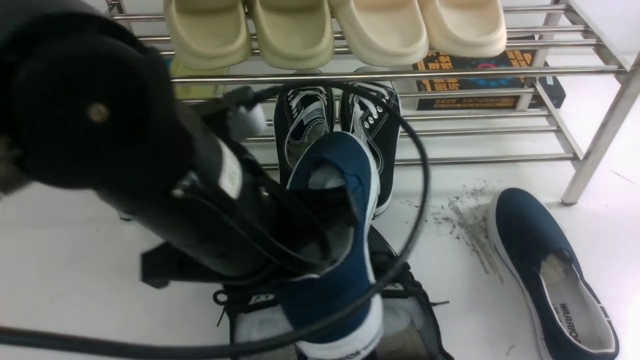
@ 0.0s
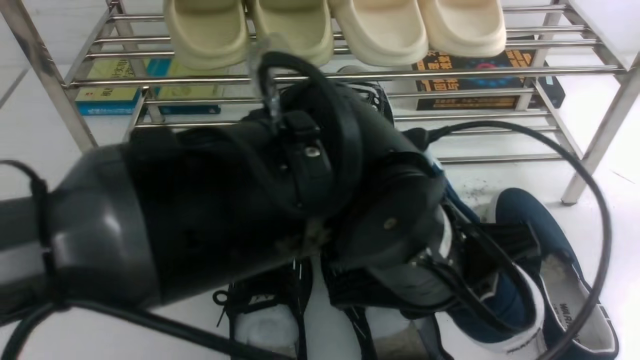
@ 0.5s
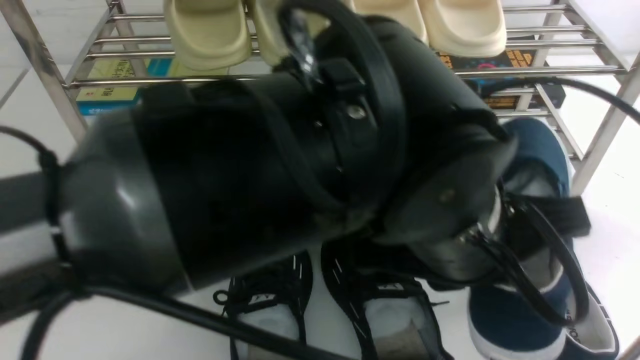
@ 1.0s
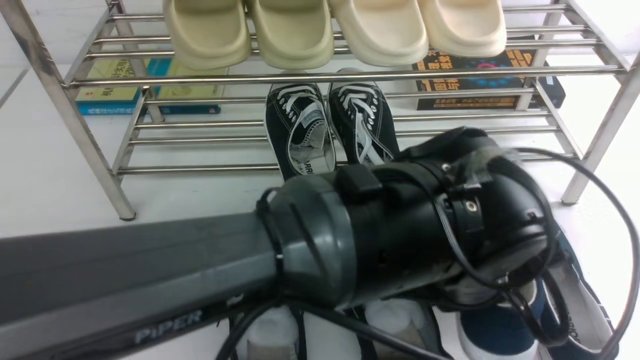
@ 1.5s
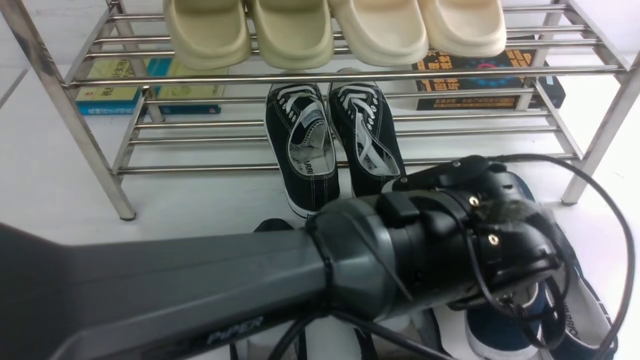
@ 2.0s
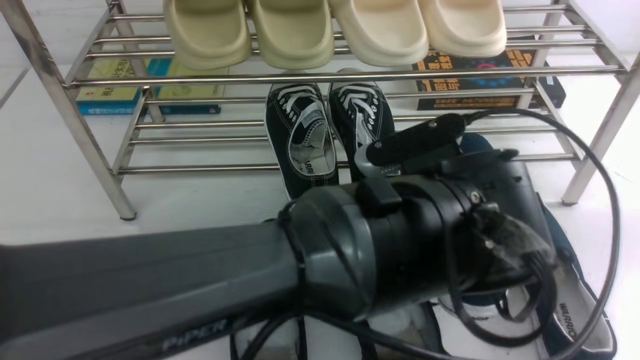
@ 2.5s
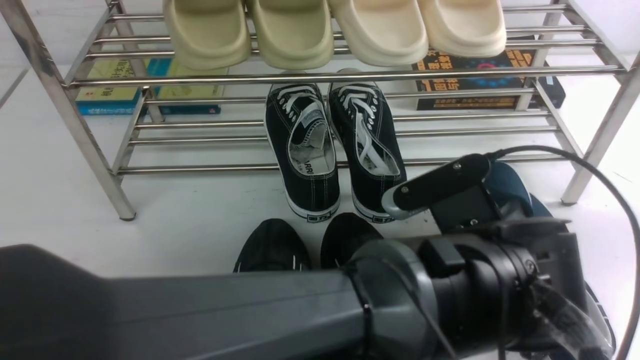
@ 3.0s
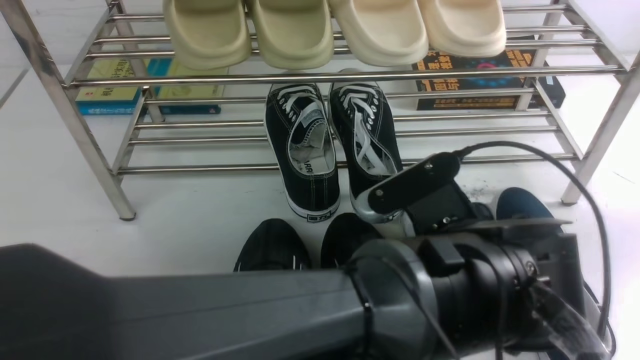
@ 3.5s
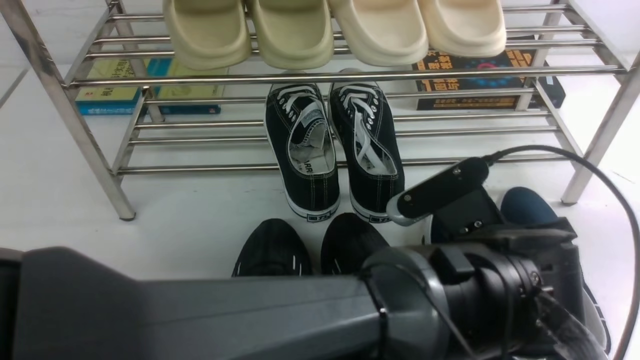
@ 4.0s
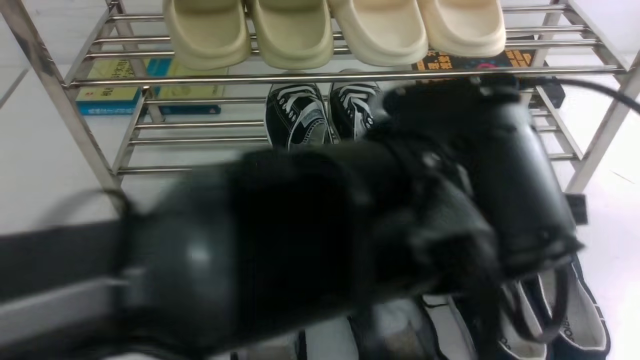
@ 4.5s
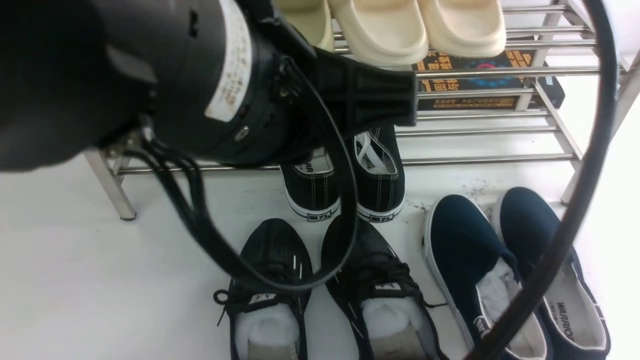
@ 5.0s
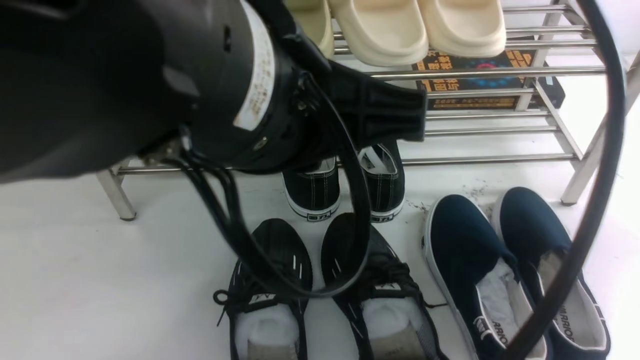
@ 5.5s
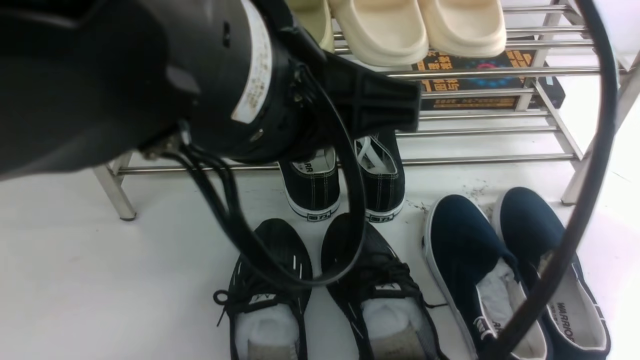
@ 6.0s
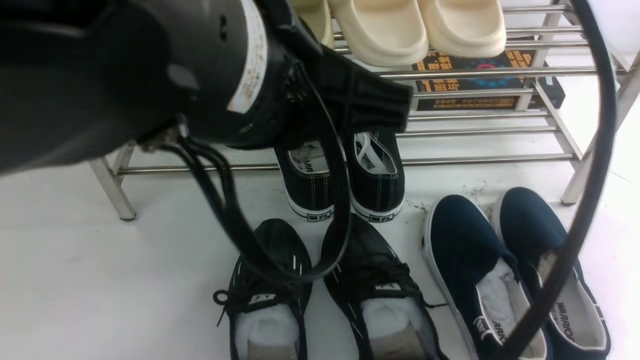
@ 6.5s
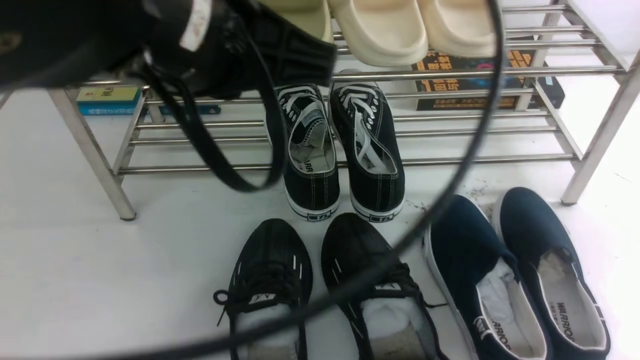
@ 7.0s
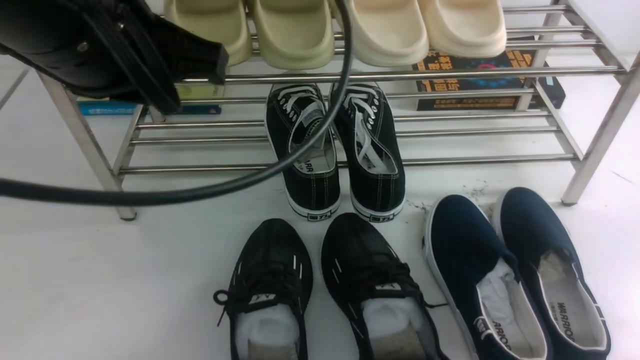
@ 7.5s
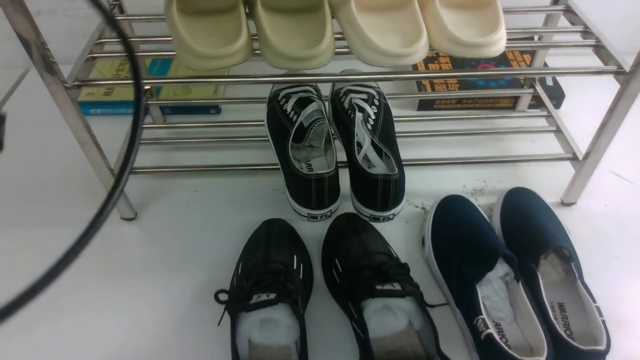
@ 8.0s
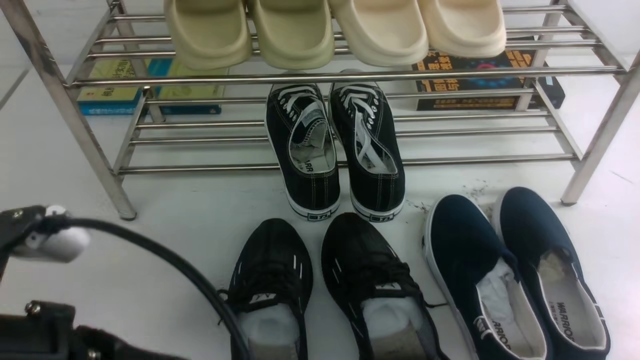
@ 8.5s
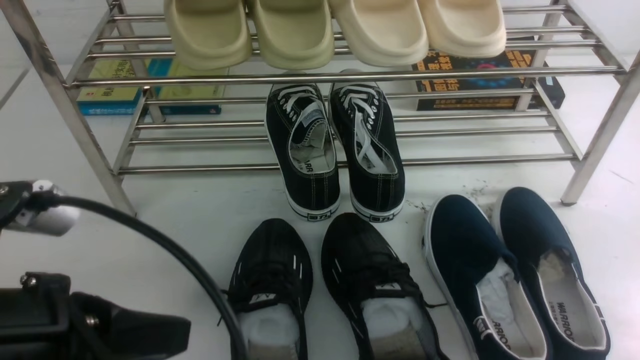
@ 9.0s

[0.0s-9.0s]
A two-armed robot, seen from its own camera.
Step, 0.0s to 4.0s: Use your left arm to remove the clamped shoe from the shoe rack and put it down.
0.0s to 2.0s: The left gripper goes approximately 20 cm to the right and downward.
2.0s to 4.5s: The left gripper is displaced upward by approximately 10 cm.
4.5s to 7.0s: The left gripper goes some 15 cm to the left and upward, while the right gripper moves downward, some 20 cm.
7.0s to 9.0s: The left gripper is displaced downward, to the left and backward by roughly 20 cm.

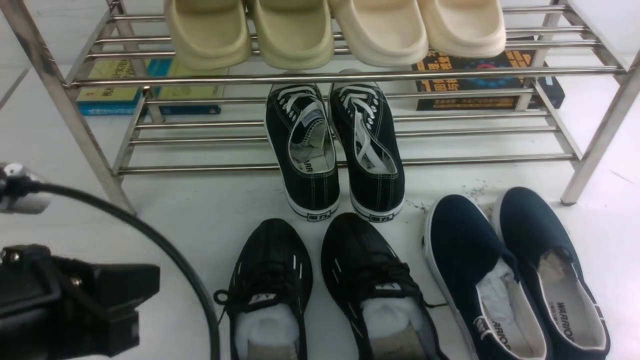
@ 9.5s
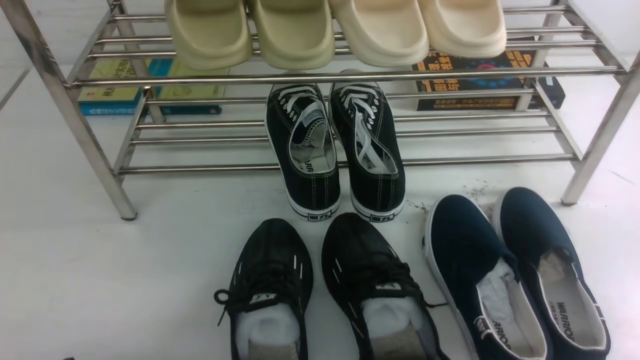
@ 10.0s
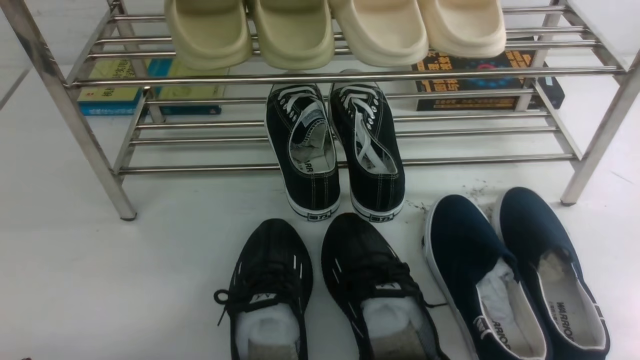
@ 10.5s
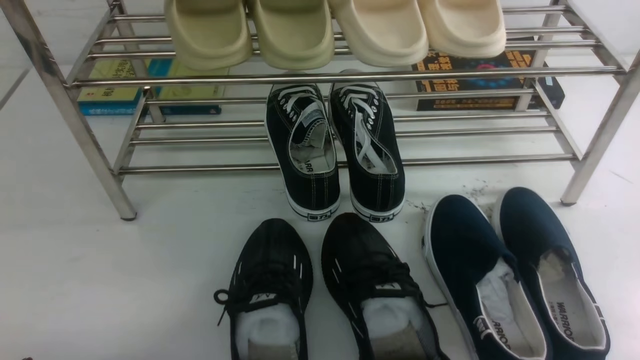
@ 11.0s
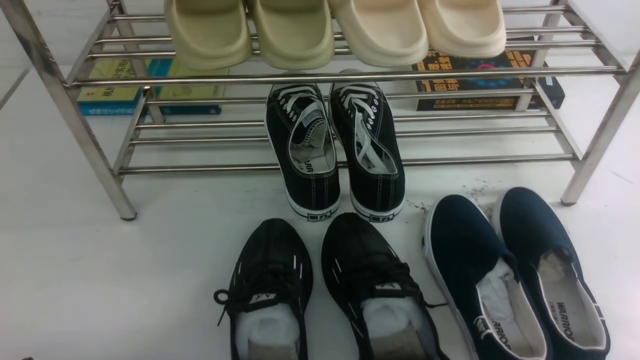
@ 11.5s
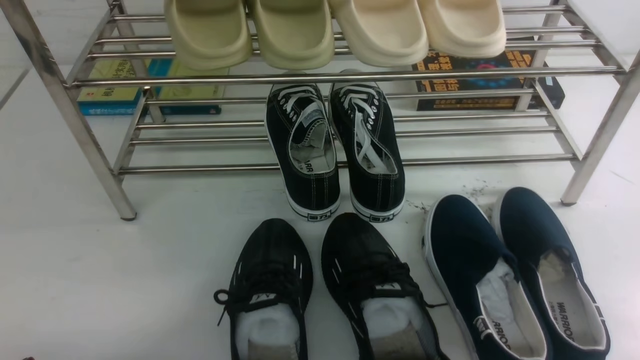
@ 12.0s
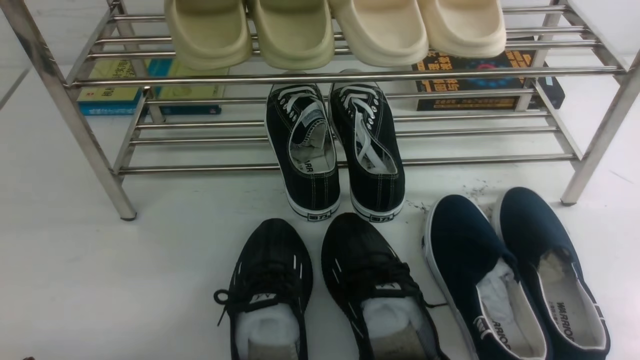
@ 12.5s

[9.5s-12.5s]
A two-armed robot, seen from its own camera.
9.5s to 11.0s: The left gripper moves downward, backward and to the left, approximately 15 cm.
11.0s to 12.5s: Both grippers stay put.
